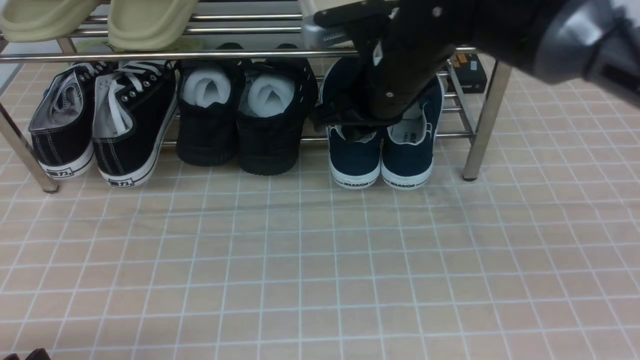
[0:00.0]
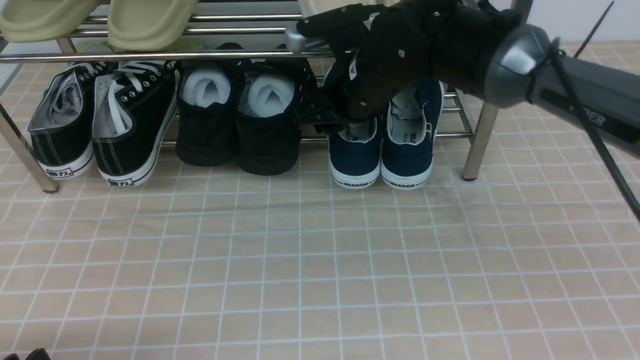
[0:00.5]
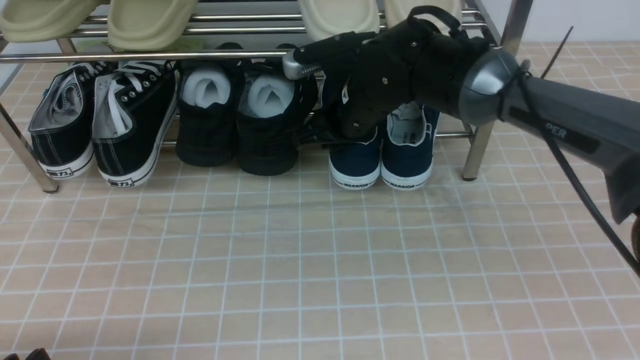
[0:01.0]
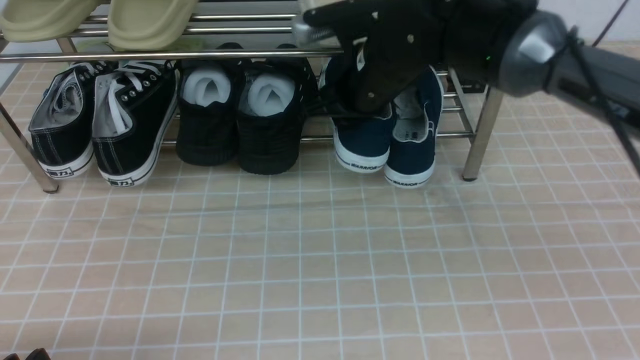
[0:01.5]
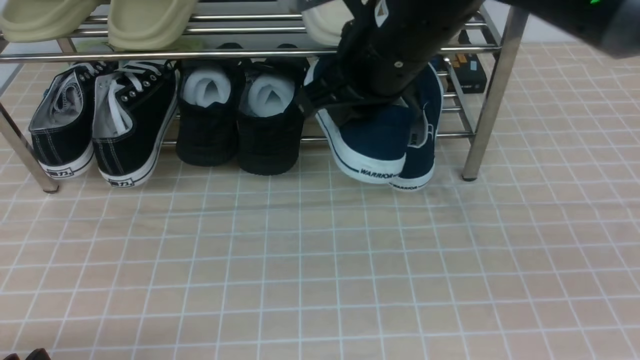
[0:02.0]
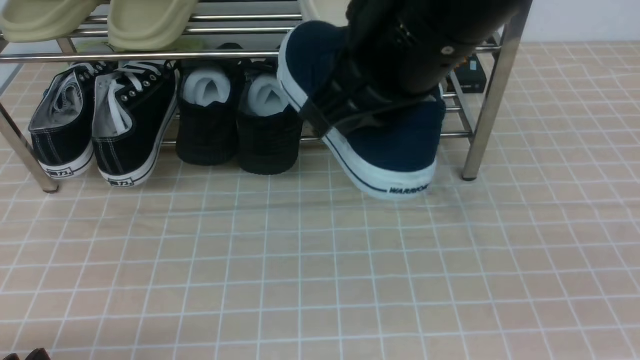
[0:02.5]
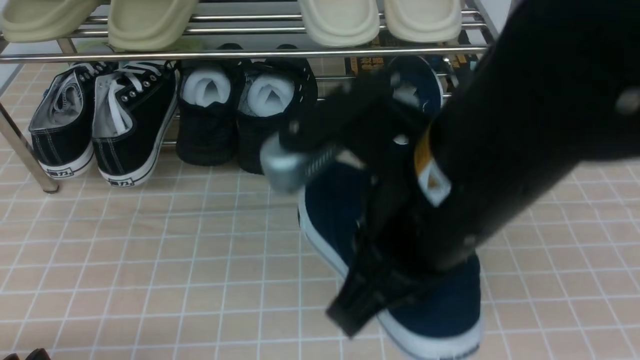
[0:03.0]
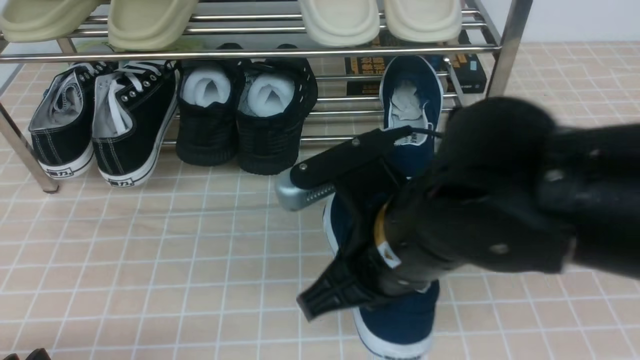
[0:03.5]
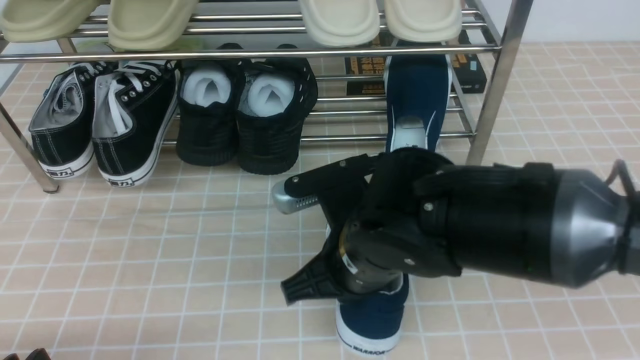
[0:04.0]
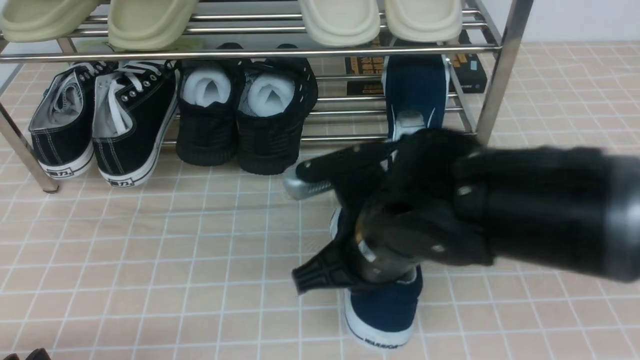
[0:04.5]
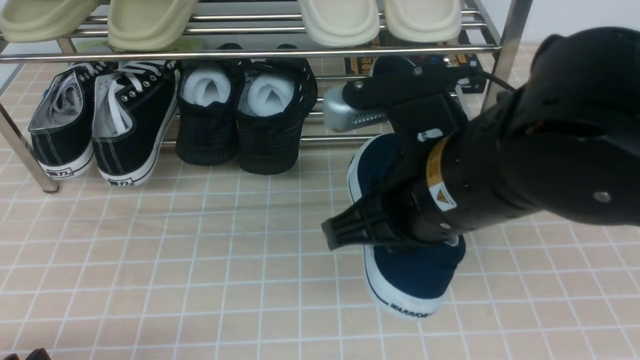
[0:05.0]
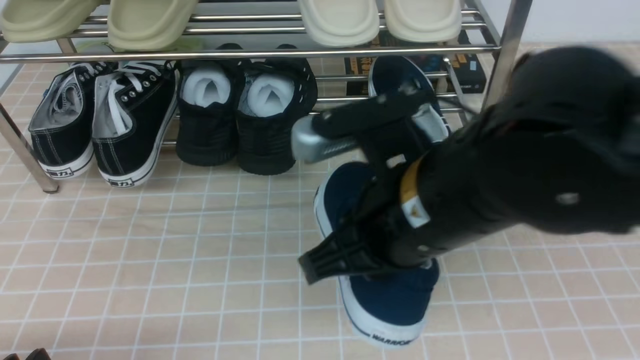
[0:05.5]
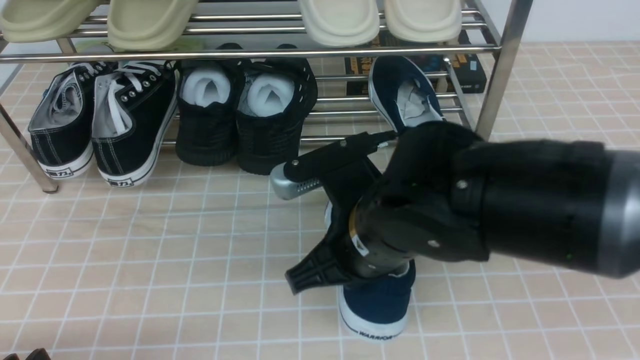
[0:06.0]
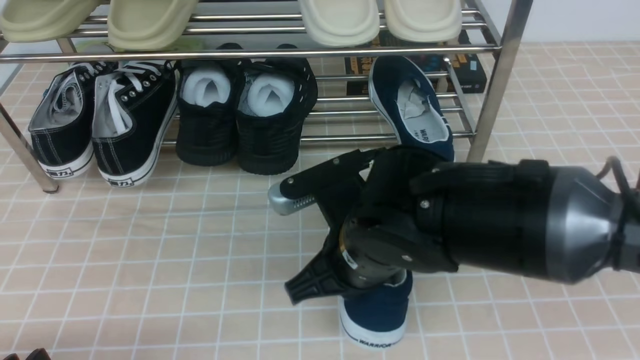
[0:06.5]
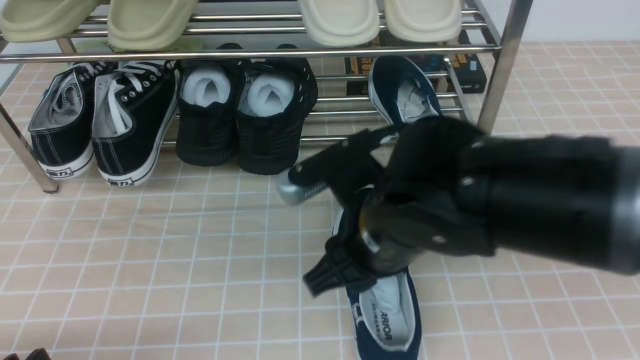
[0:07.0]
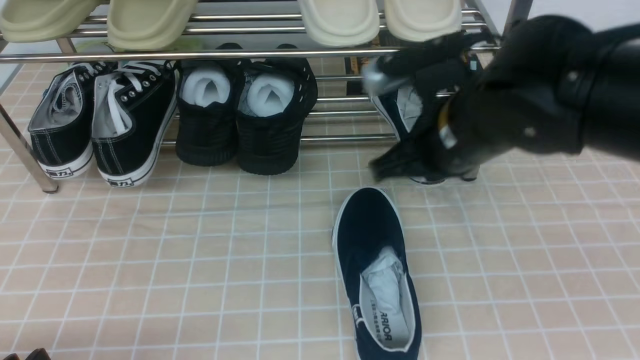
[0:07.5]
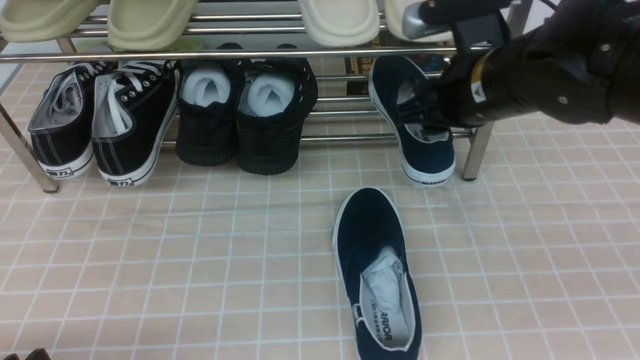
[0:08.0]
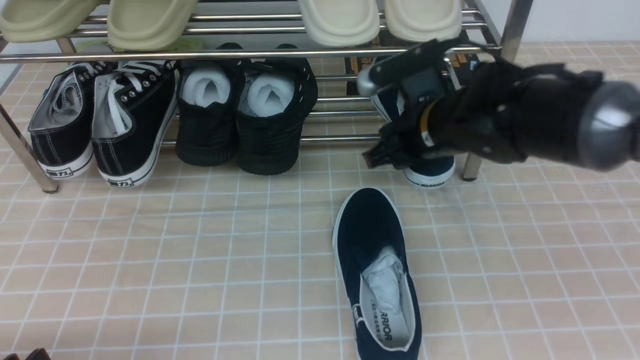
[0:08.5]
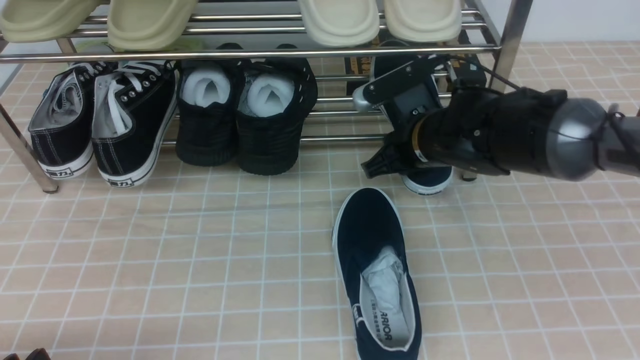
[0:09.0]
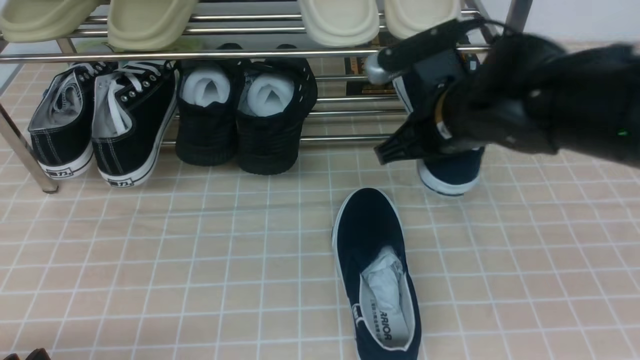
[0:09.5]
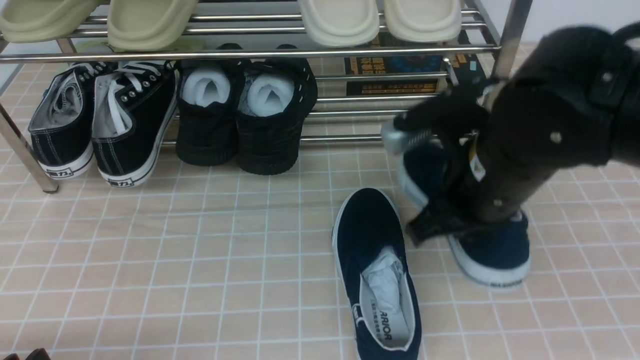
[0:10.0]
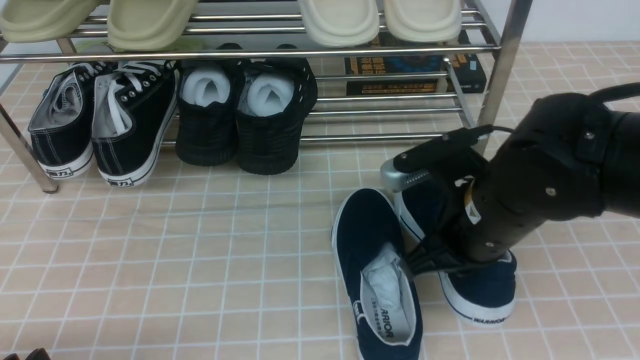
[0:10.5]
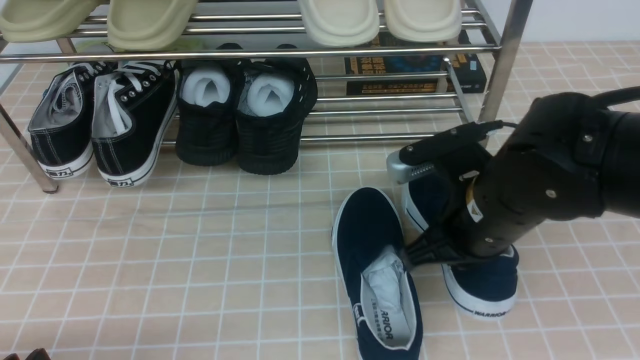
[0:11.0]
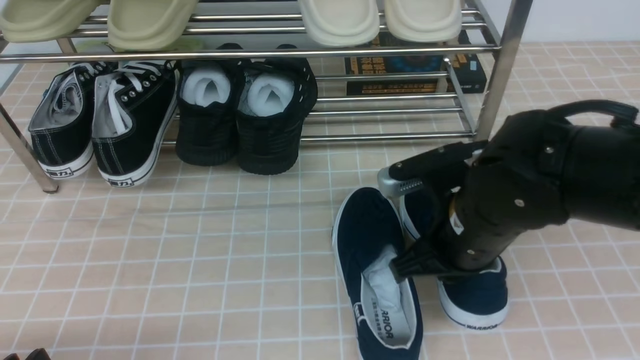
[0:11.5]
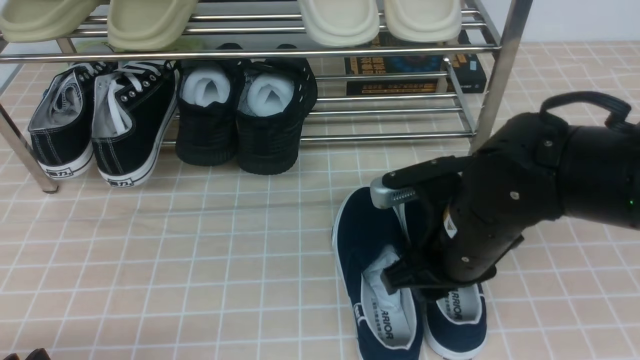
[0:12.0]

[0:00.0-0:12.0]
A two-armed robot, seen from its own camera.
Step, 0:01.5 to 0:06.5: use the right arm to take out the clamped shoe from the shoe rack and put it down.
Step, 0:07.0 to 0:09.0: use the right arm to clamp a shoe on the right side of the shoe rack.
0:00.0 to 0:02.0: The right gripper is displaced upward and backward by approximately 10 cm, and opens, then closes once more.
0:02.0 to 0:04.0: The right gripper is displaced downward and backward by approximately 15 cm.
0:04.0 to 0:06.0: The right gripper travels upward and back again, approximately 10 cm each way.
0:06.0 to 0:08.0: The right gripper heads forward and to the right, covering about 15 cm, and opens up.
0:08.0 to 0:10.0: The right gripper is displaced backward by some 10 cm, and closes its fingers.
0:10.0 to 0:12.0: The right gripper opens up.

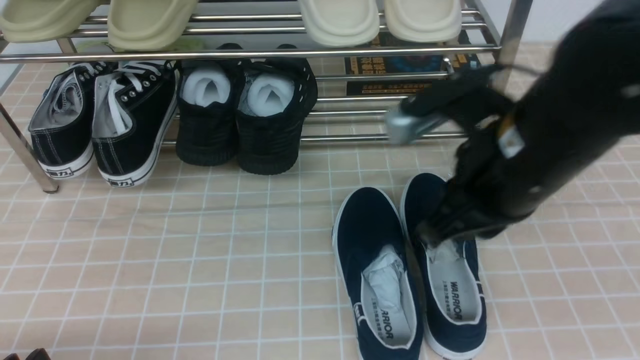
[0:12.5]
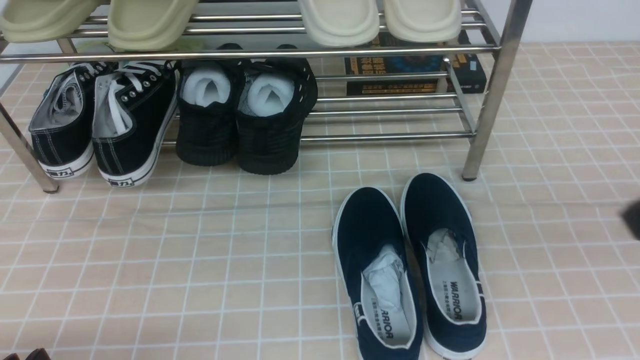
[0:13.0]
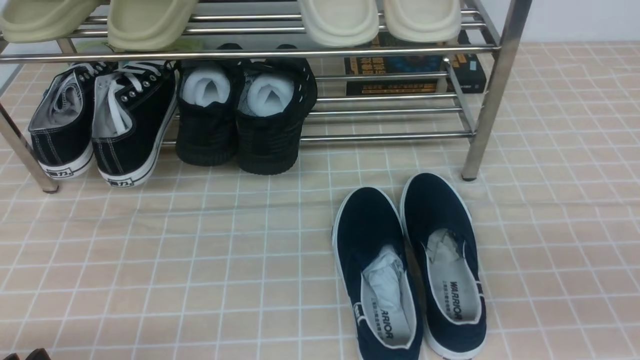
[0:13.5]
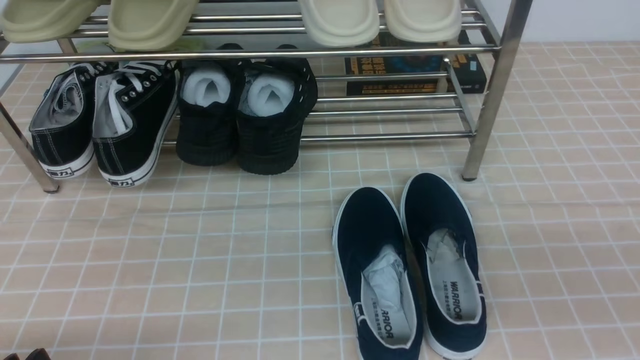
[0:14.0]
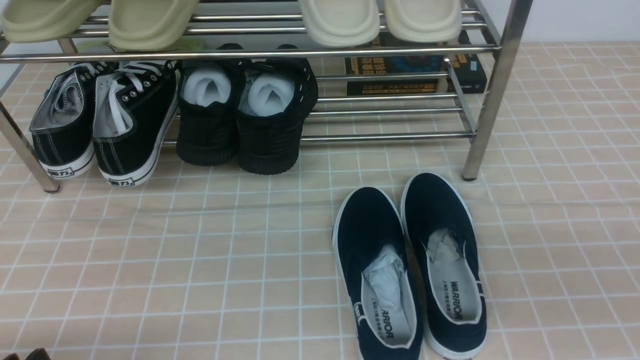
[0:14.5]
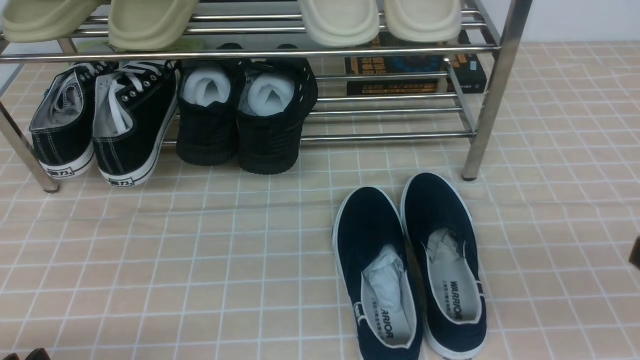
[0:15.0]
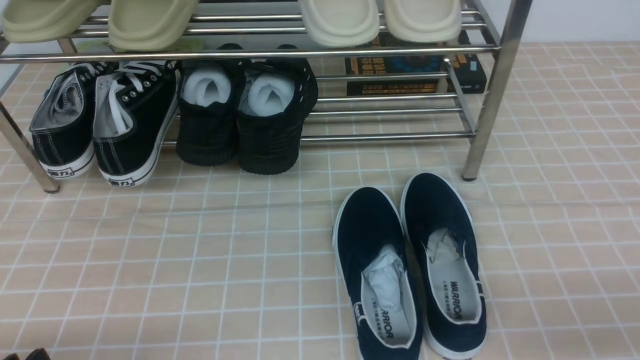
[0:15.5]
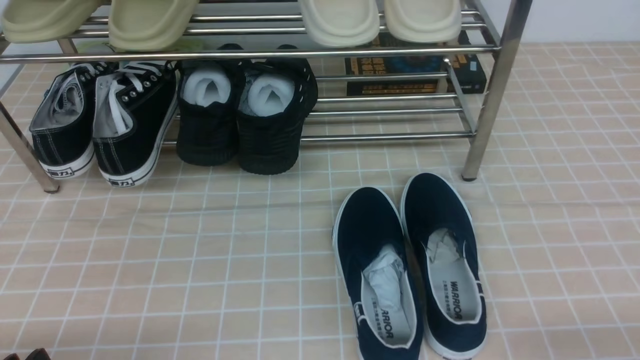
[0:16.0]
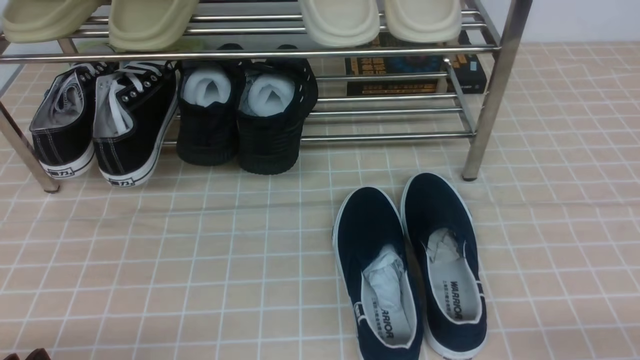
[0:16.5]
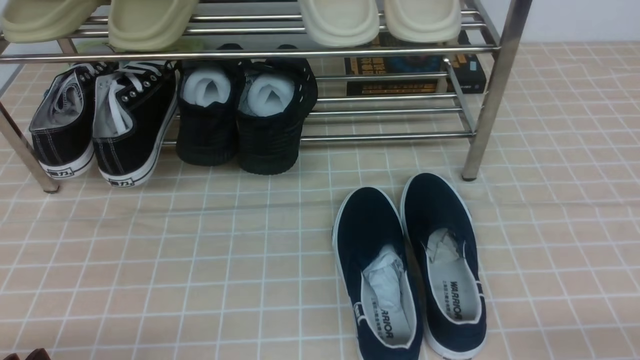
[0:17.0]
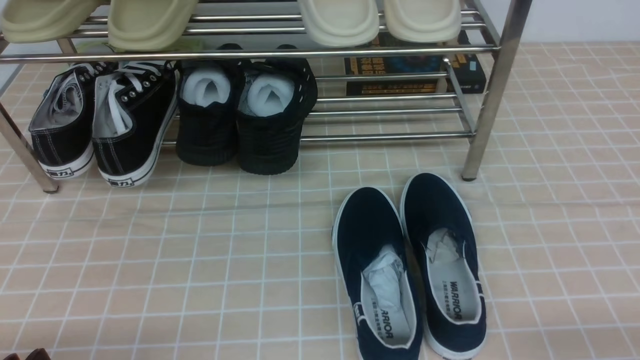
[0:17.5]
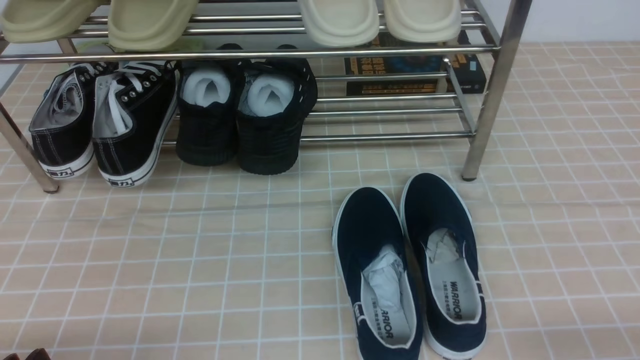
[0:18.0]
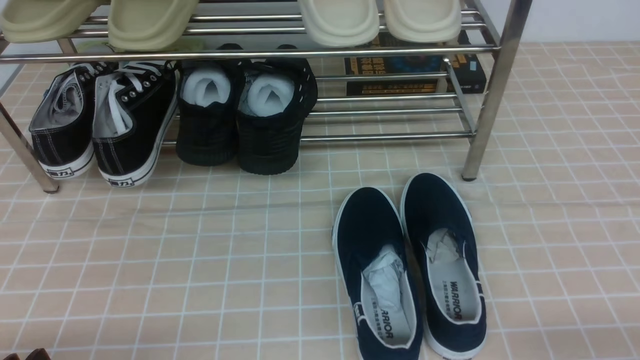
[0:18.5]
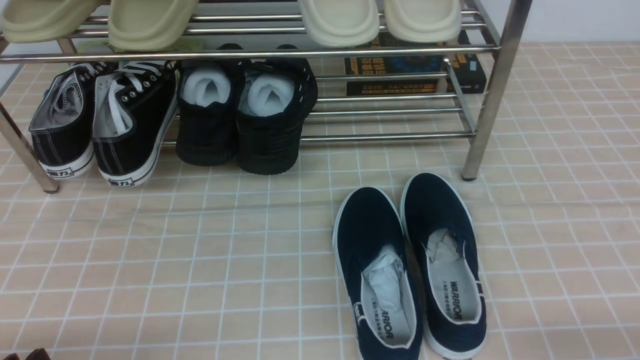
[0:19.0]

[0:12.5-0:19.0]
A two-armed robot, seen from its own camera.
0:12.5 to 0:14.5: The right gripper shifts approximately 20 cm backward and to the right.
0:17.0 to 0:19.0: Both grippers stay about where they are.
